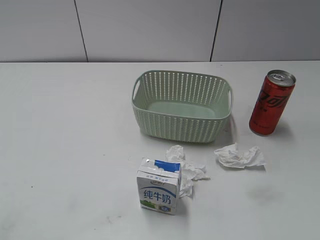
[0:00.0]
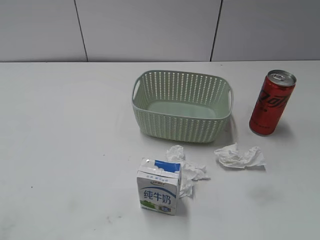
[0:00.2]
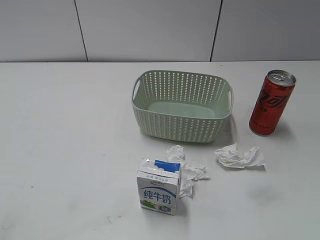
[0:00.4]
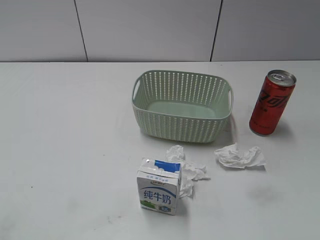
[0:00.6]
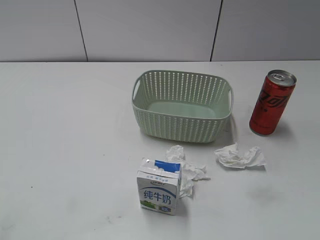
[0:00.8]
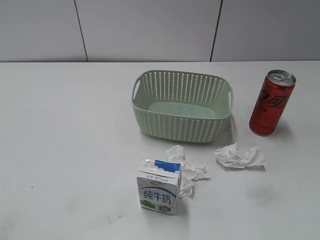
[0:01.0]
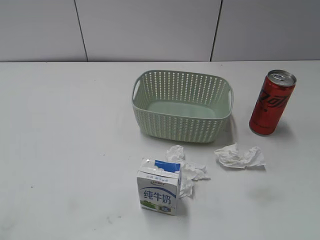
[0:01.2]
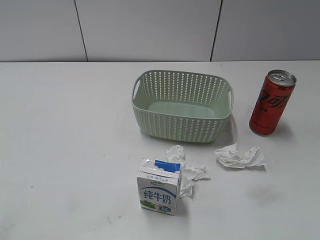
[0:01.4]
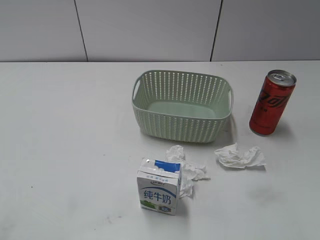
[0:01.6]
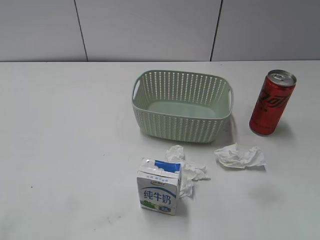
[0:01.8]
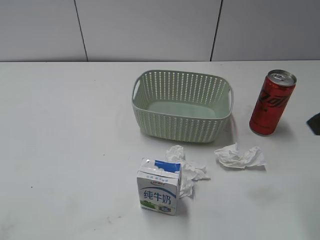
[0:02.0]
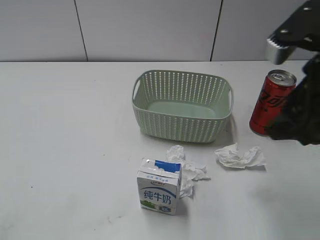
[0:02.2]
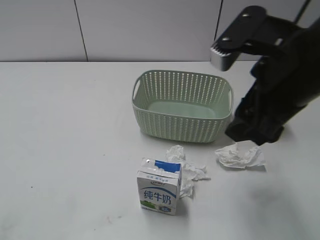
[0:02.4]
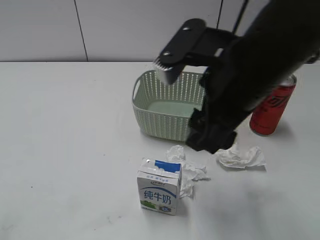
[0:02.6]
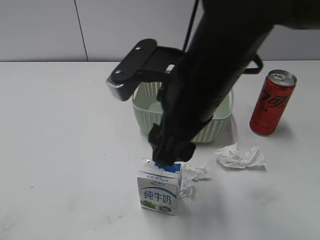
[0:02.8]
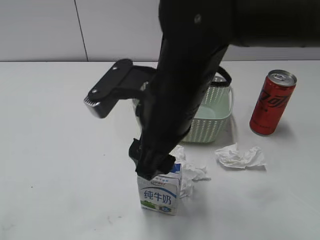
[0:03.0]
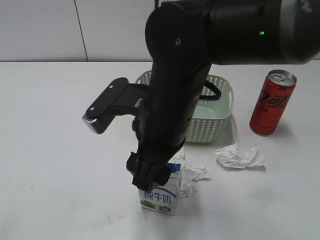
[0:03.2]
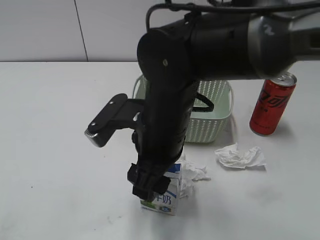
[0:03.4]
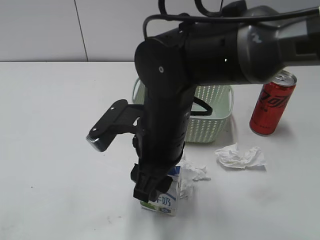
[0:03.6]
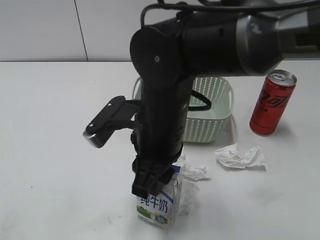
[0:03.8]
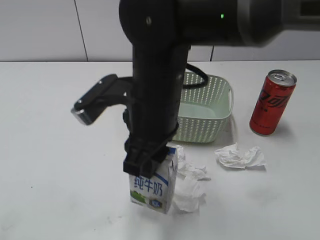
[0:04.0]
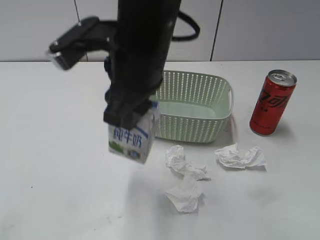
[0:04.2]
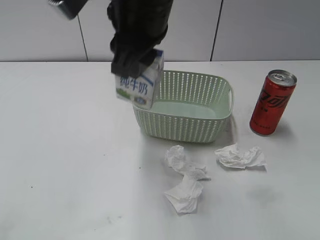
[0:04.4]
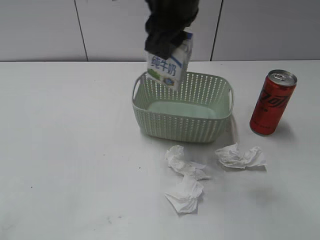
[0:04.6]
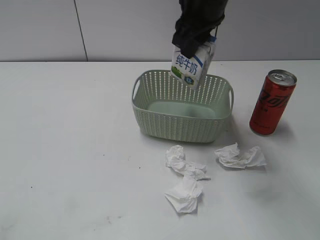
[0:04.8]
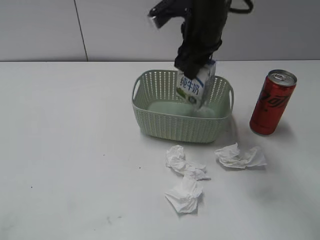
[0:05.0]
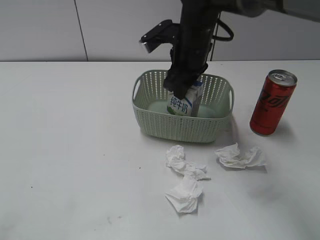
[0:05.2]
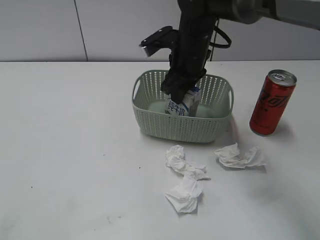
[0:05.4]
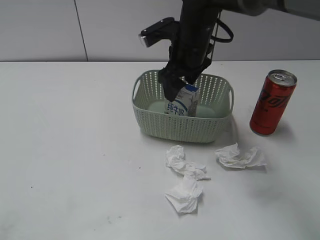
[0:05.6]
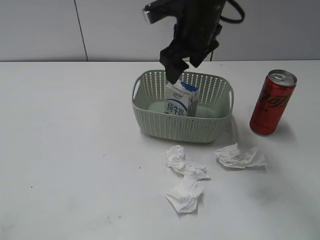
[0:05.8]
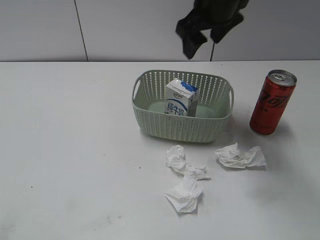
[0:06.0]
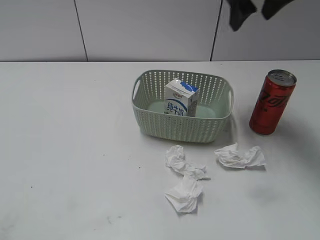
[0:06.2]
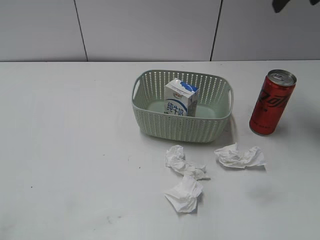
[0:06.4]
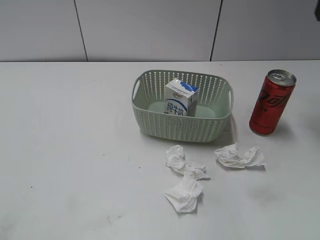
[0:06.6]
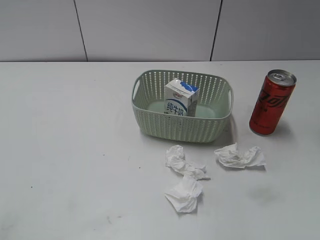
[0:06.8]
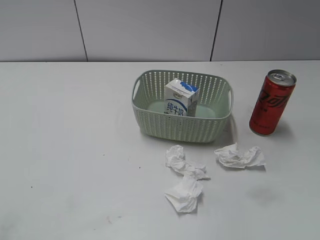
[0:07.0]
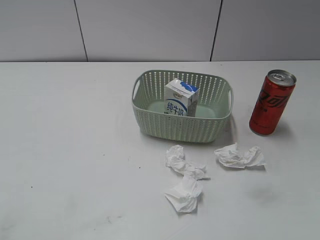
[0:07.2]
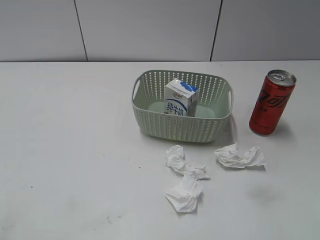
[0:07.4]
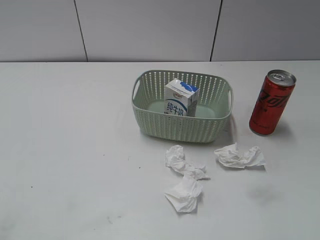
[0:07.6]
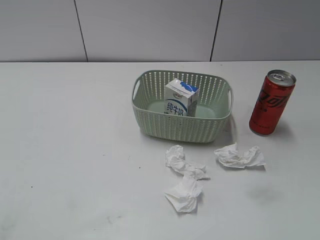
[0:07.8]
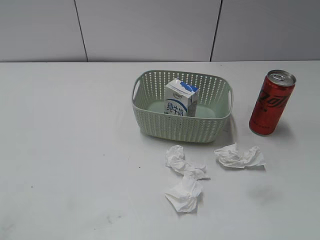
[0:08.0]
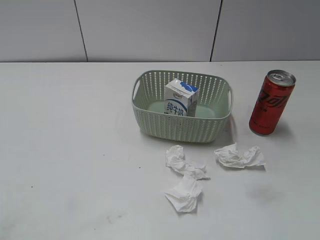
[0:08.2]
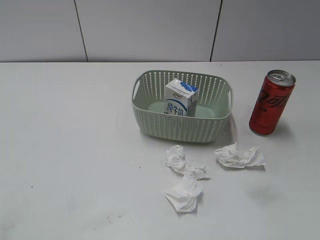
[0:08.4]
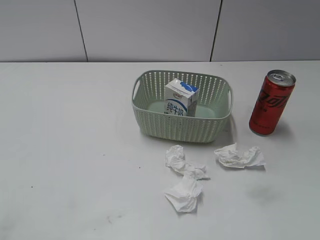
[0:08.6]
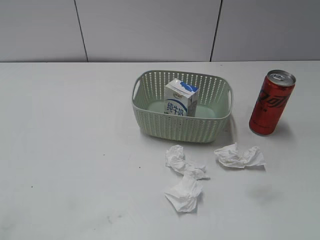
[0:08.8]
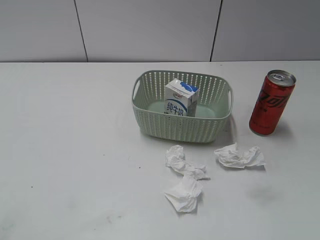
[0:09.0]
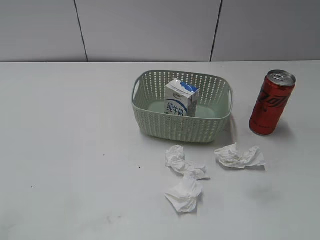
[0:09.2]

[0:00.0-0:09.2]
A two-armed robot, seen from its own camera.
Step, 0:02.0 to 0:03.6: Grasp the milk with right gripper.
Step, 0:03.8 to 0:05.8: Place the milk in the basket with right gripper.
0:01.6 to 0:03.0: The right gripper travels to the left by approximately 30 cm.
0:03.0 to 0:04.6: The right gripper moves forward and upward, about 15 cm, and closes up.
0:04.6 to 0:06.2: The right gripper goes approximately 15 cm to the right and forward, travels downward and back again, approximately 15 cm each way, and opens.
0:06.2 to 0:07.6: The right gripper travels backward and to the right by some 35 cm.
